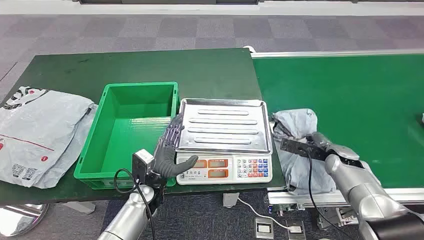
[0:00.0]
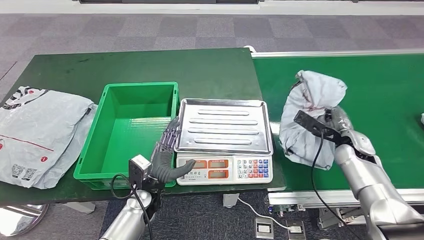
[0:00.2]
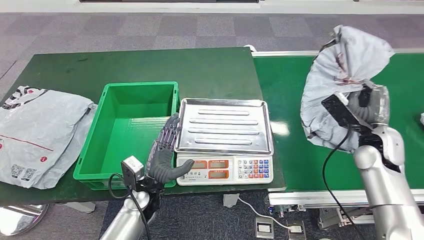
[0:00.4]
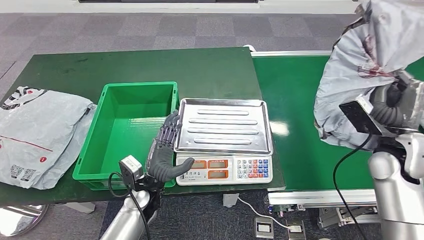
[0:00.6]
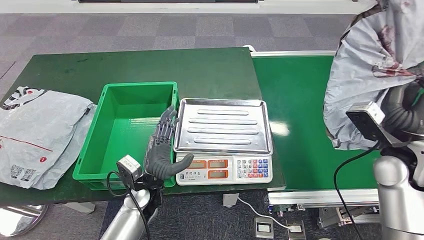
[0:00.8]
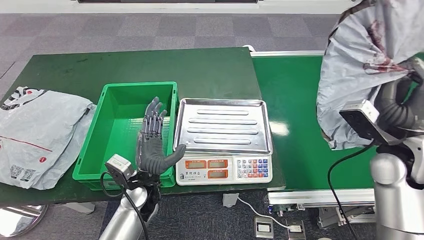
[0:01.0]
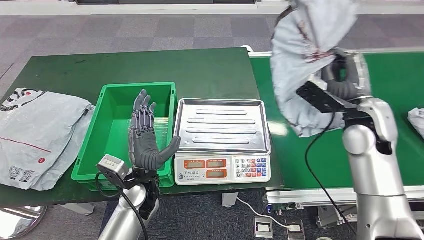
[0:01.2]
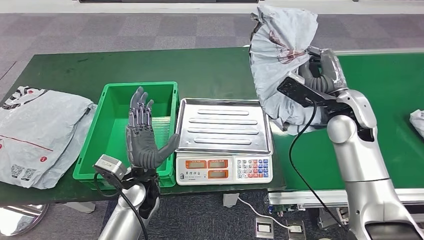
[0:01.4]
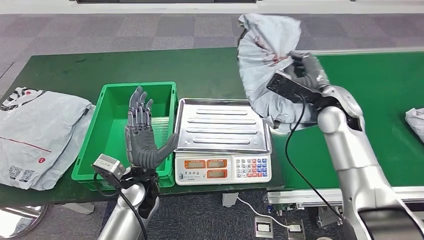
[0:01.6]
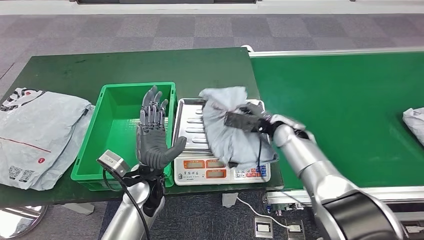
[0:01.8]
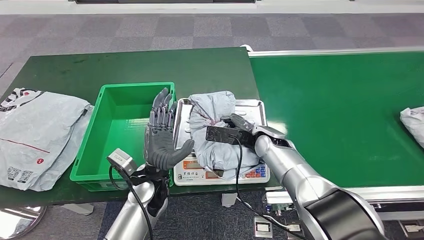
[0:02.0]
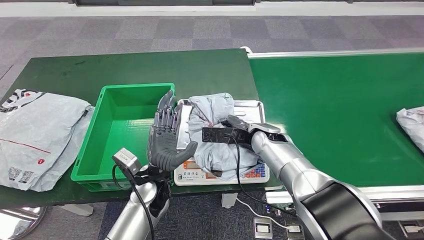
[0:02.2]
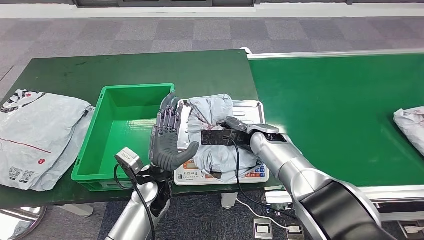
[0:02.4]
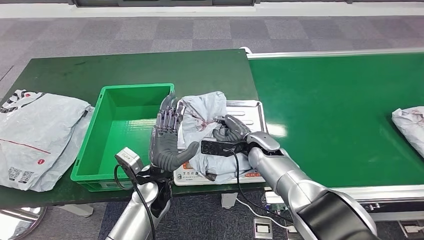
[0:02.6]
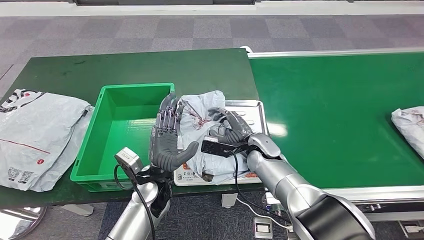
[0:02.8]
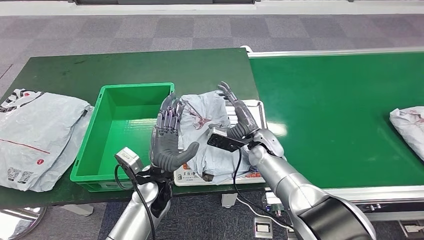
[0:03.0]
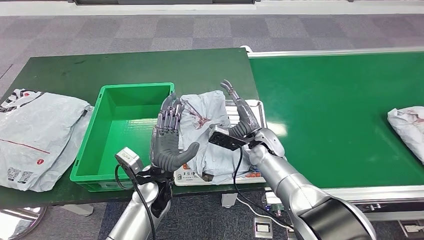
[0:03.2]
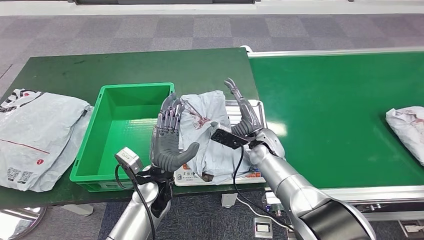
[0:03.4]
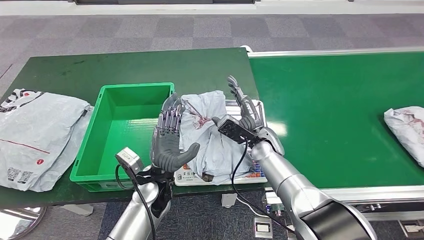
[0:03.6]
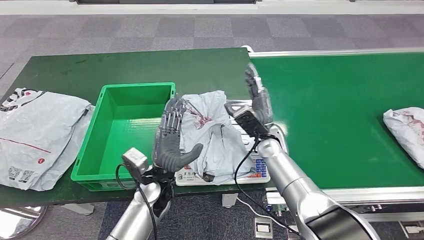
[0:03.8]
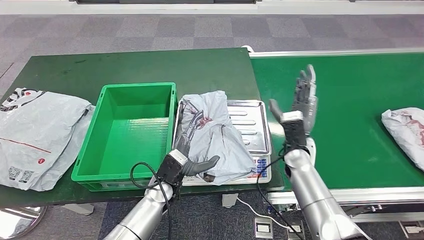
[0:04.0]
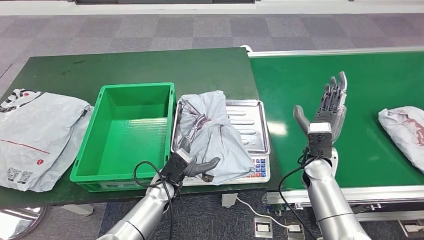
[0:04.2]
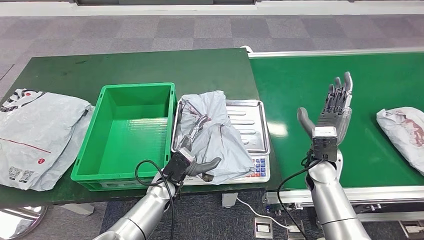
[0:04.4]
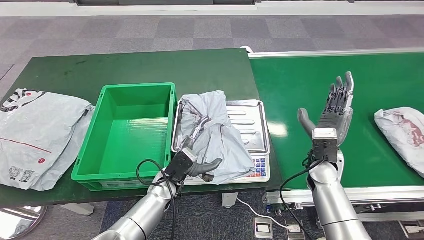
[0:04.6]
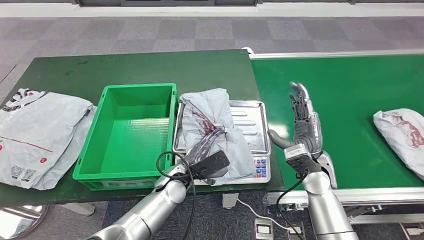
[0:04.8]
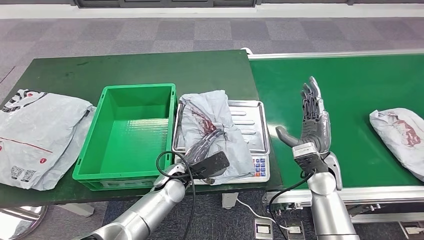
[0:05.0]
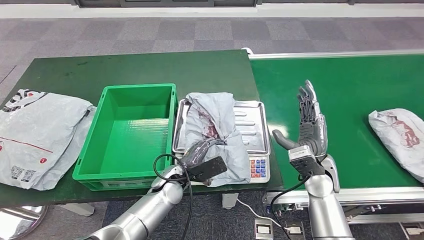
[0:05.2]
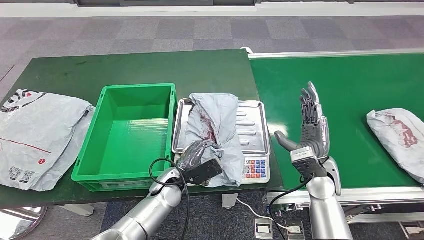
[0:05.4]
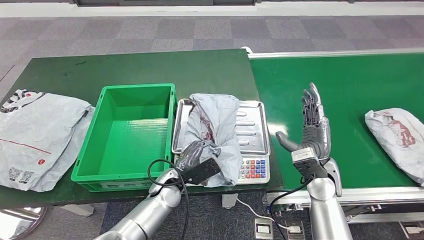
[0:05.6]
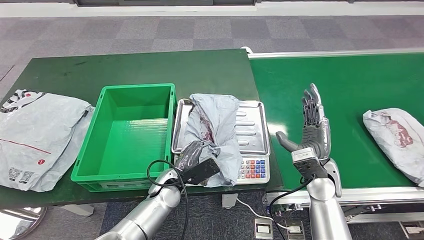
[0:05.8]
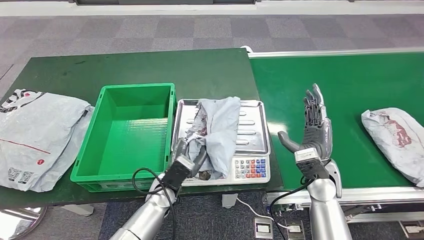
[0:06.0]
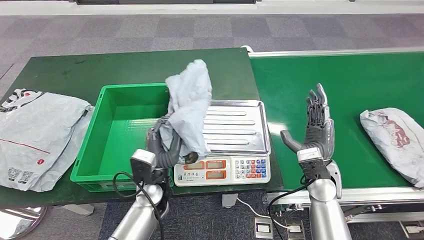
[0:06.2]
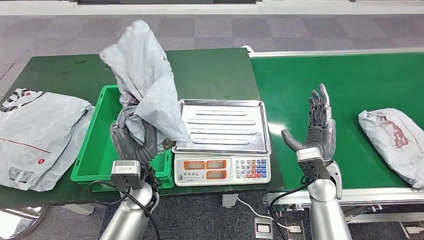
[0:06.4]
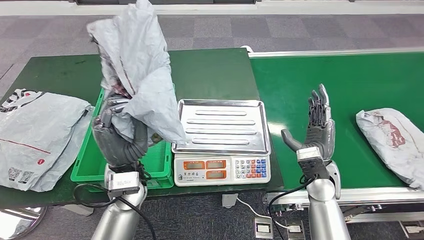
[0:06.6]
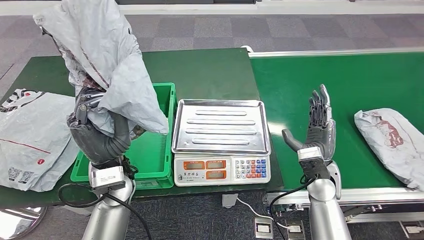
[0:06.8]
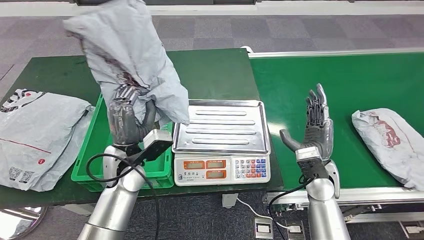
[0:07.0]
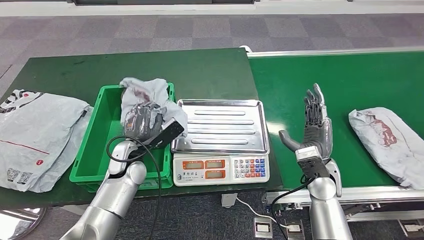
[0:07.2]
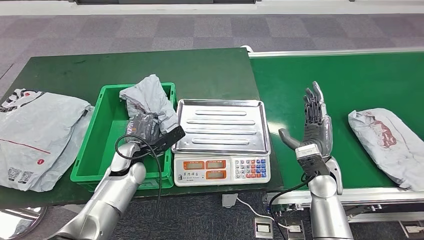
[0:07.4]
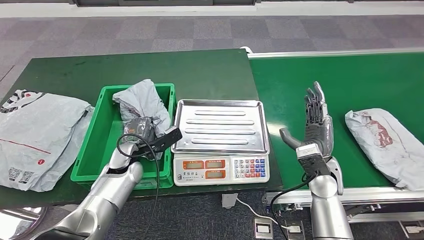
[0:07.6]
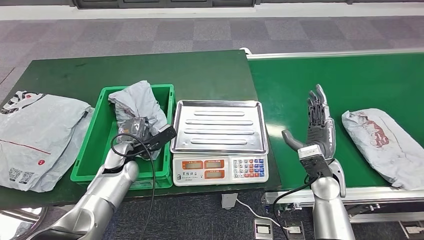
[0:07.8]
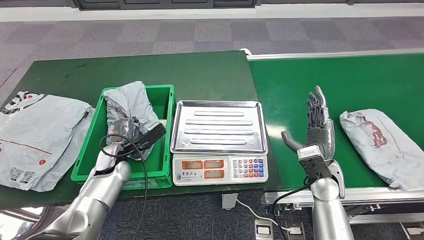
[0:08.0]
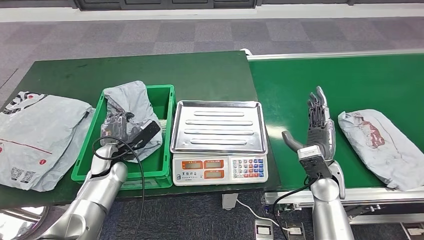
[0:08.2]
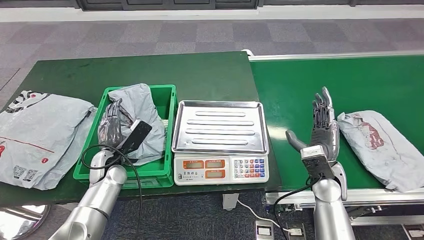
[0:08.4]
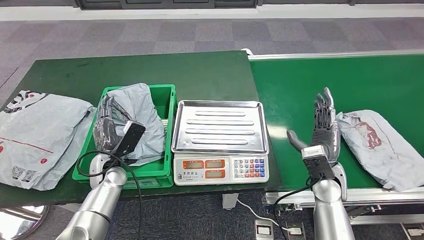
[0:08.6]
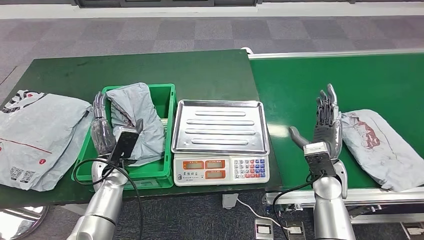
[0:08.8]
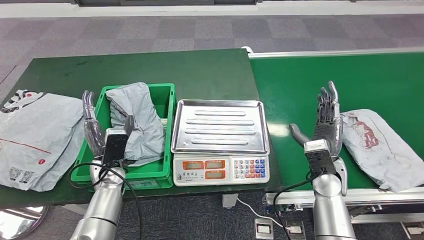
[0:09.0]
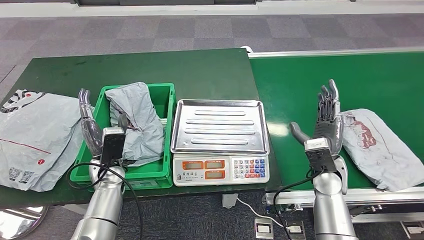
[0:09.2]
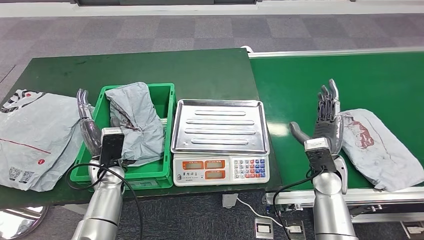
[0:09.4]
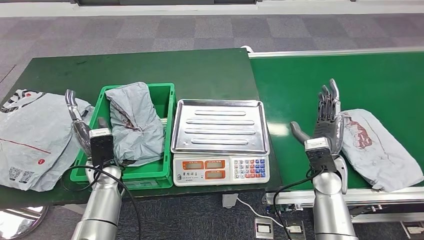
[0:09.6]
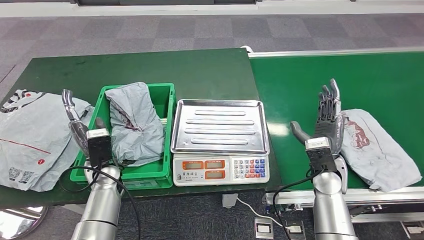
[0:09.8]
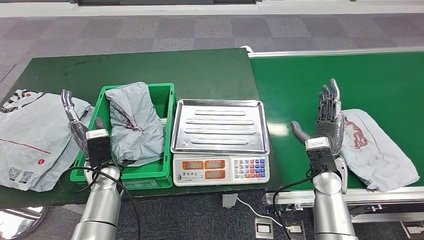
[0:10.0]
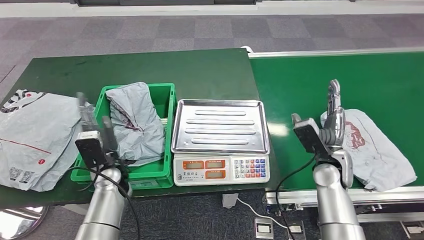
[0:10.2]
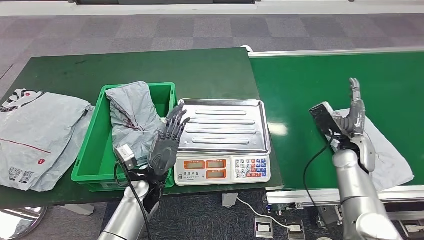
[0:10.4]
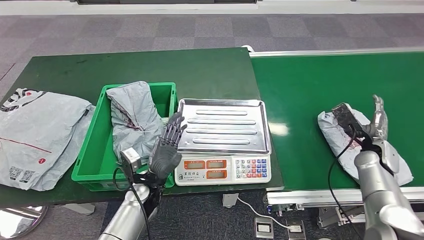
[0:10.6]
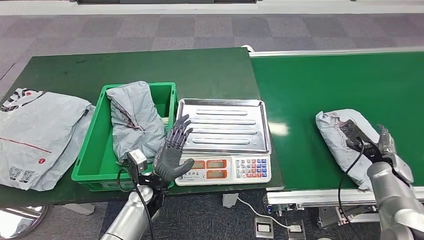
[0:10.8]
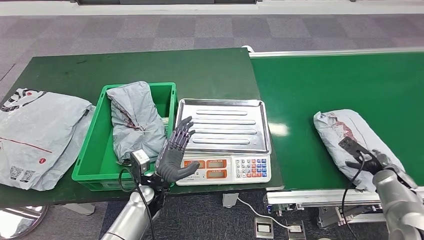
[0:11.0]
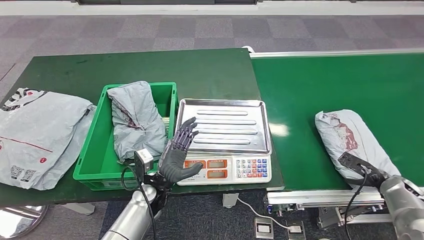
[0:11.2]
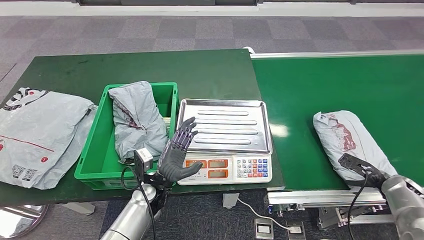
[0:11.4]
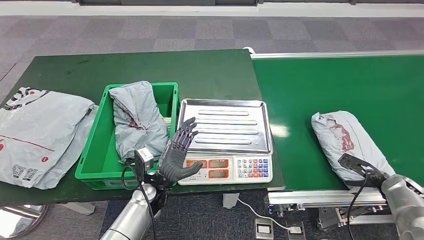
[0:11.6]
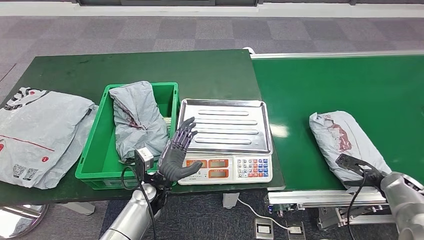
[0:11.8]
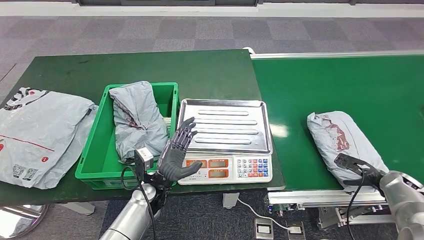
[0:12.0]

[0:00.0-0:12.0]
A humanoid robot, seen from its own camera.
Step, 0:00.0 to 0:01.6: Take the parcel off the conveyor belt.
Step, 0:01.8 to 0:04.0: Place the parcel onto the inbound machine.
Step, 0:04.2 to 0:06.8: Pick up the parcel from the inbound machine.
Step, 0:07.0 to 0:10.0: Put the parcel inside the courier box.

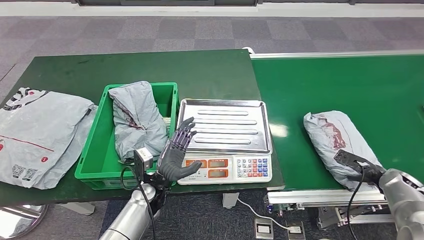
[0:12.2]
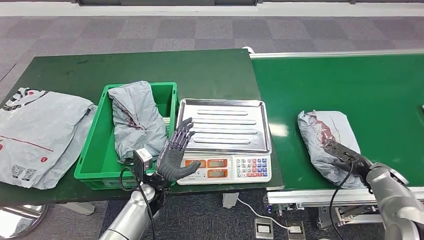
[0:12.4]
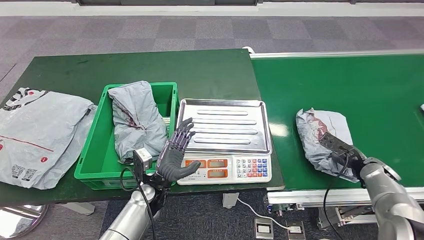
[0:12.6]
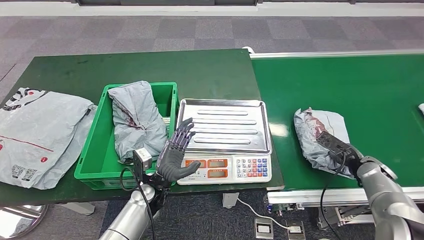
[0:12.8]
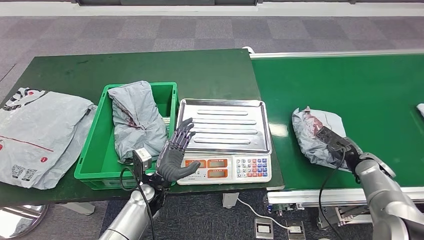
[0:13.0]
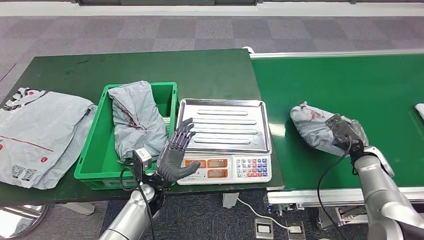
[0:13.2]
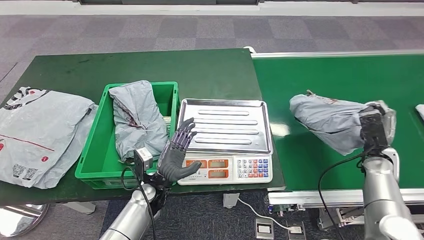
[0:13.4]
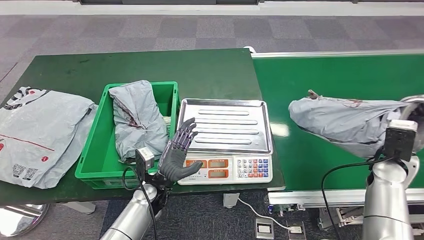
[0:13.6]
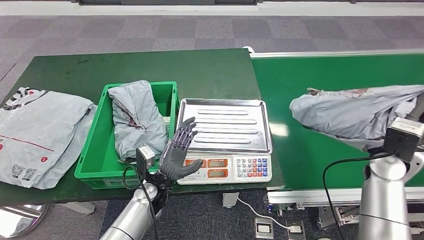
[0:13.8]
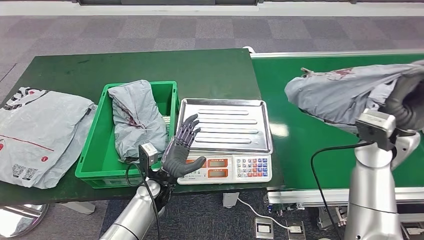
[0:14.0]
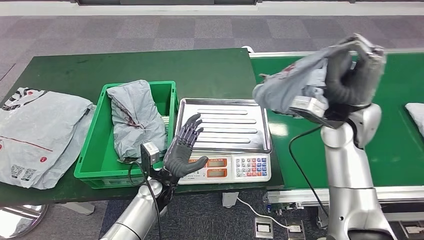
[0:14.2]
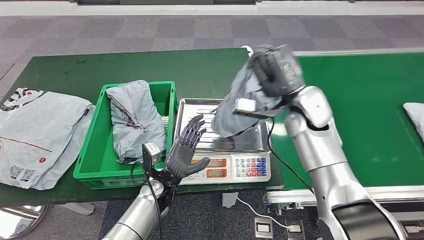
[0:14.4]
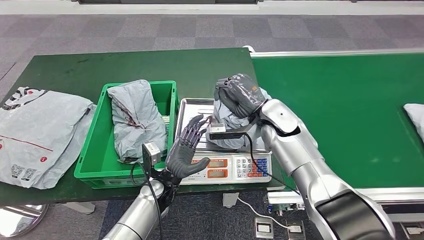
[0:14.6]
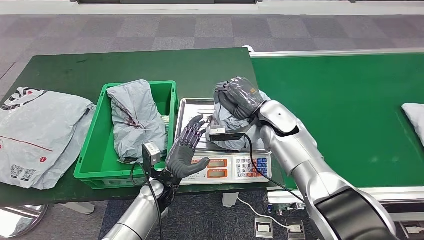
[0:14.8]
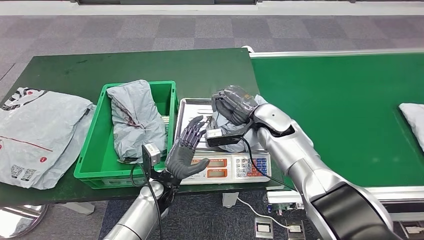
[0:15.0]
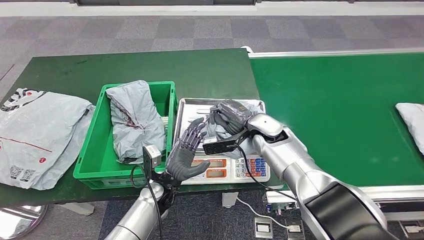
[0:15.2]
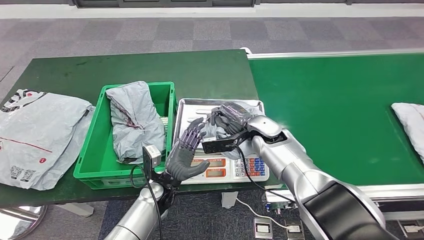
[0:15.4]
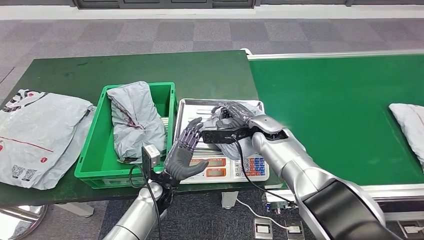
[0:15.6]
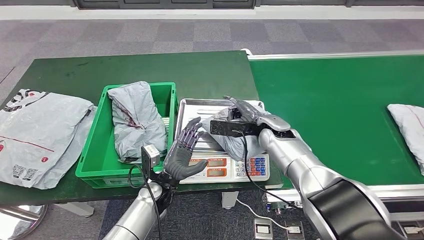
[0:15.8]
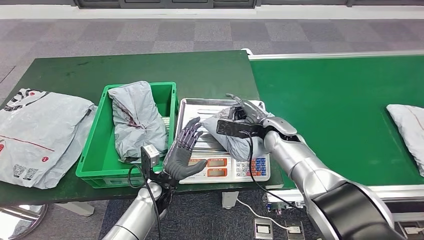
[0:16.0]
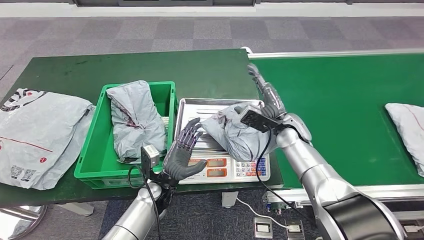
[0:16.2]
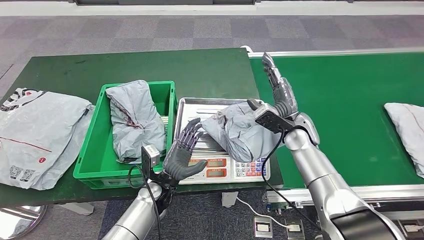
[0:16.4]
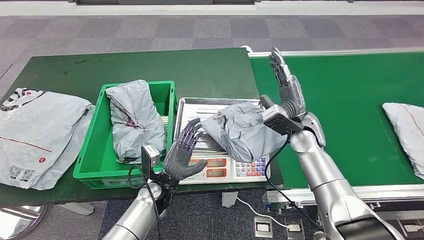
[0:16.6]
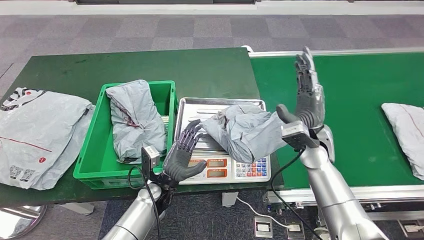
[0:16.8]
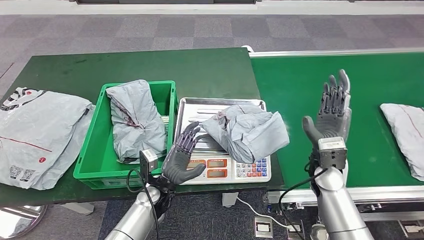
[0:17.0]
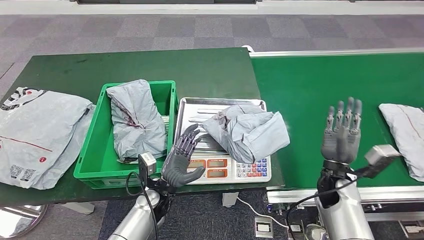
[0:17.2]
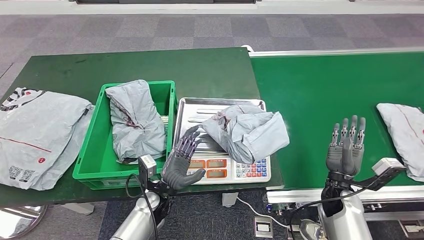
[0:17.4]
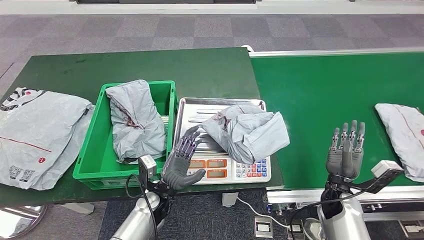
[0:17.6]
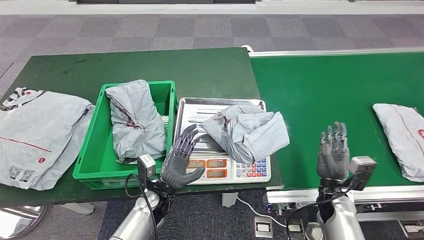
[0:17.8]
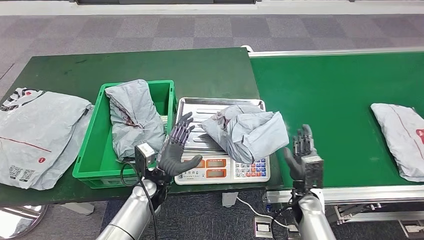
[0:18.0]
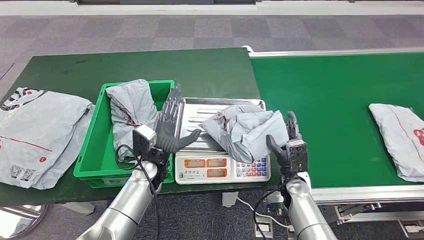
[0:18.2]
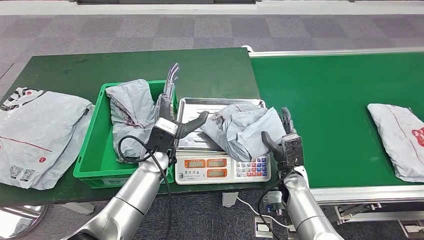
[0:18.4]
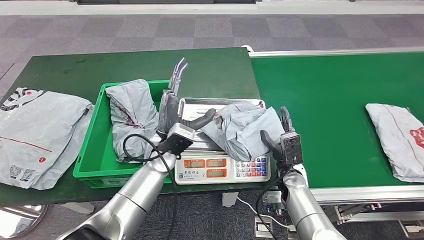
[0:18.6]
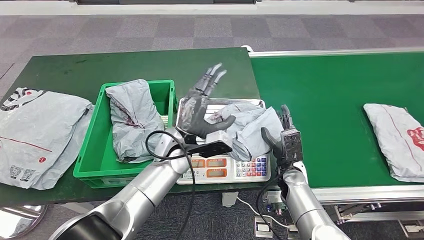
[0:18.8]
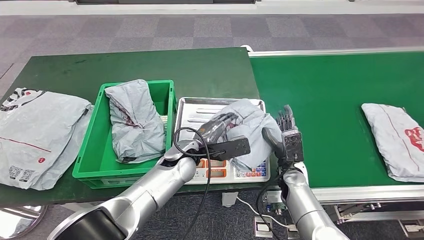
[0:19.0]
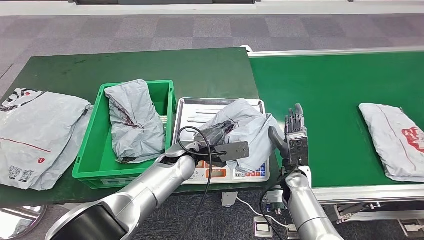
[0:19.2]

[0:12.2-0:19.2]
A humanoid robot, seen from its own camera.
Step, 0:13.6 to 0:16.4: Place the parcel onto the inbound machine.
0:12.2 to 0:13.6: The right hand goes roughly 10 cm upward and to the left.
0:15.0 to 0:16.4: The right hand shifts approximately 10 cm to the right.
